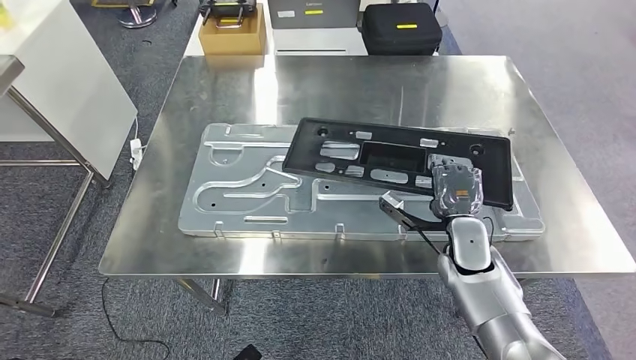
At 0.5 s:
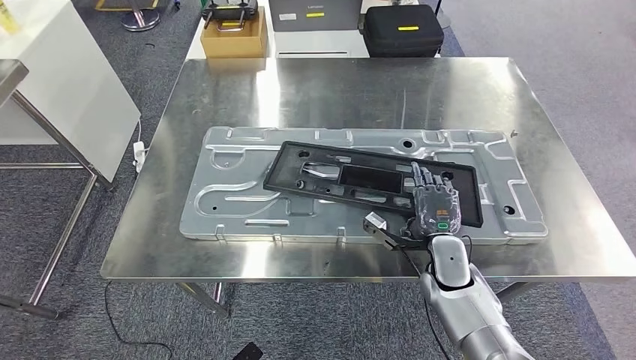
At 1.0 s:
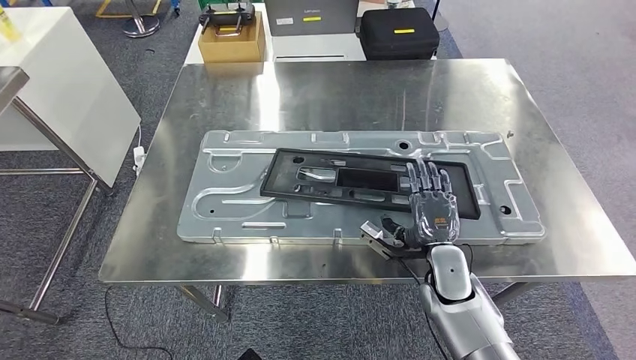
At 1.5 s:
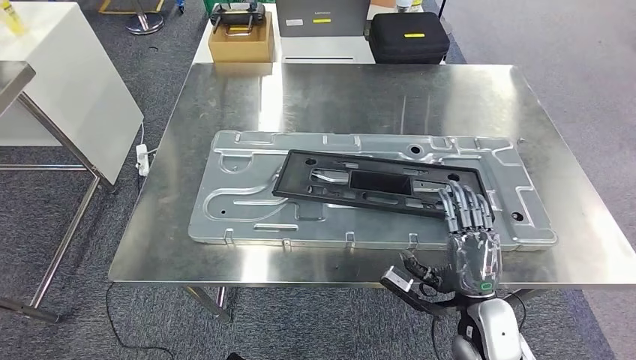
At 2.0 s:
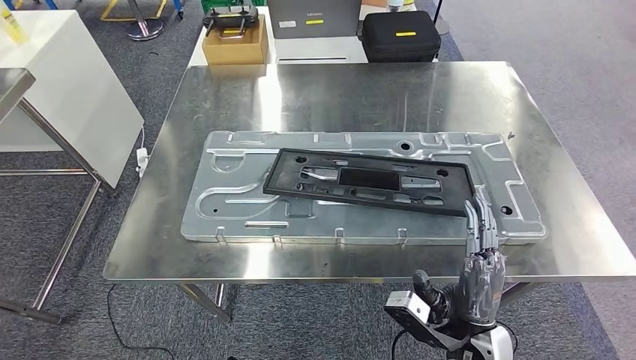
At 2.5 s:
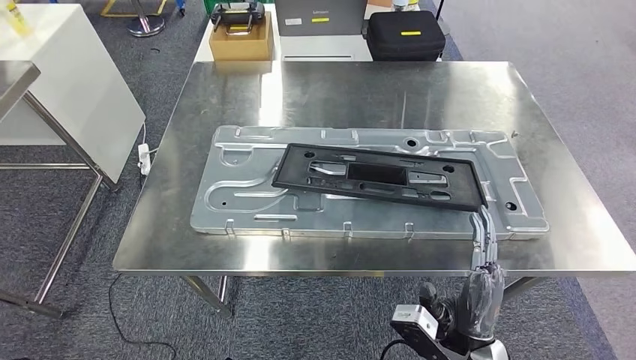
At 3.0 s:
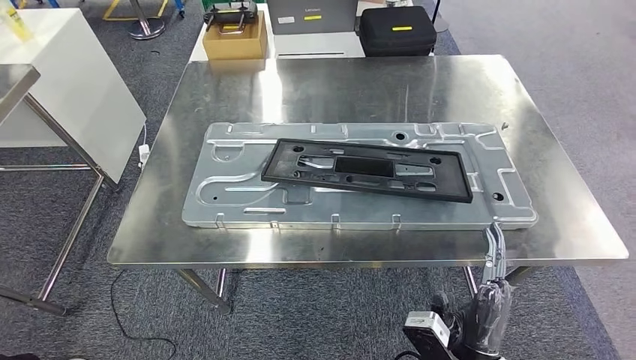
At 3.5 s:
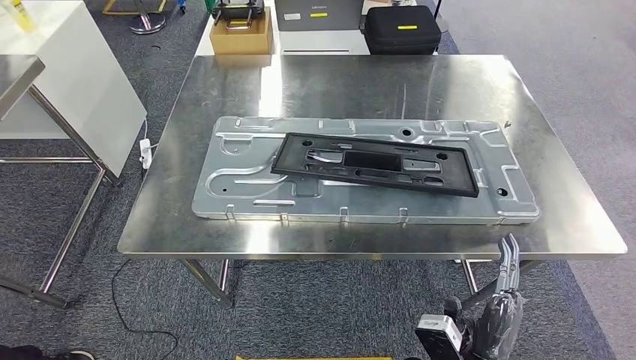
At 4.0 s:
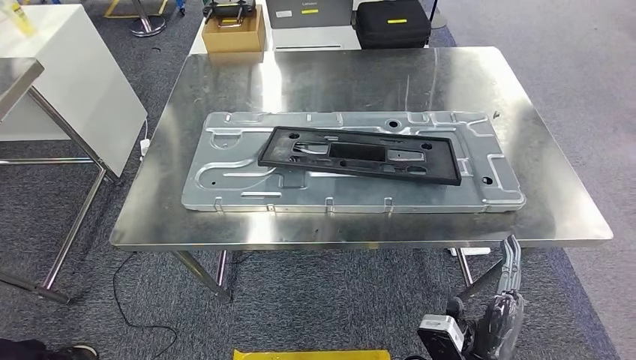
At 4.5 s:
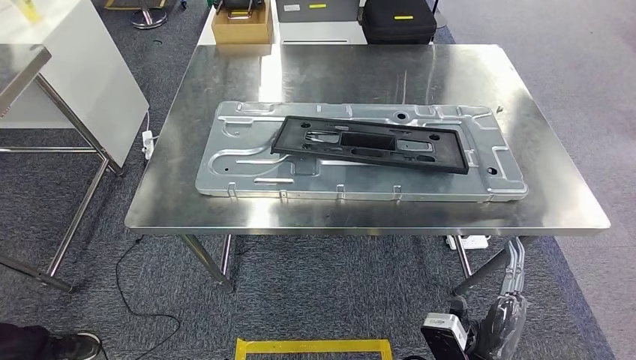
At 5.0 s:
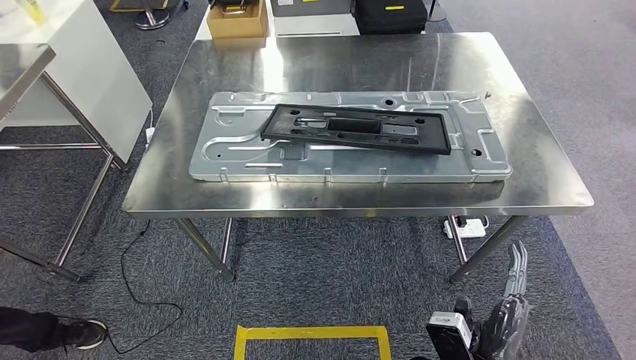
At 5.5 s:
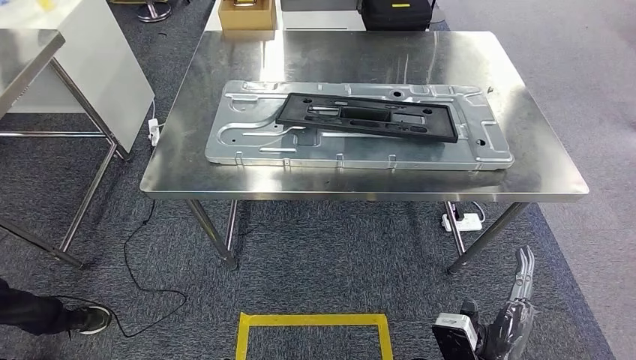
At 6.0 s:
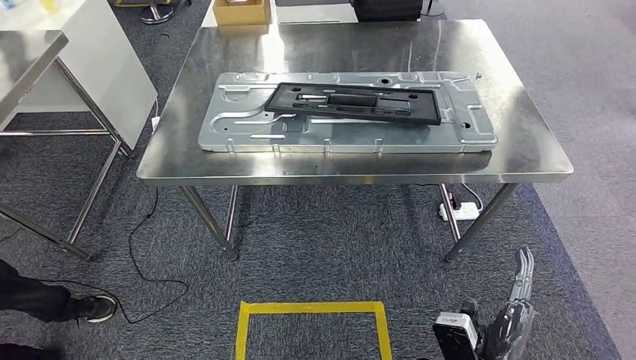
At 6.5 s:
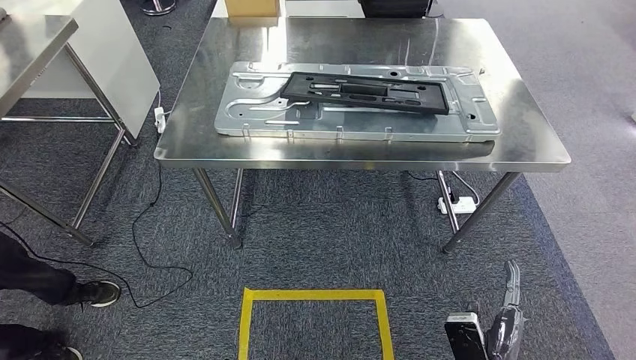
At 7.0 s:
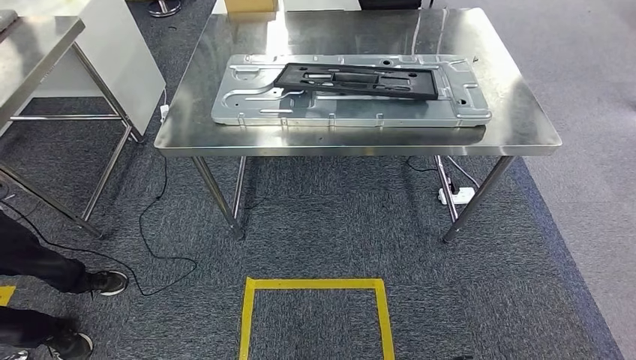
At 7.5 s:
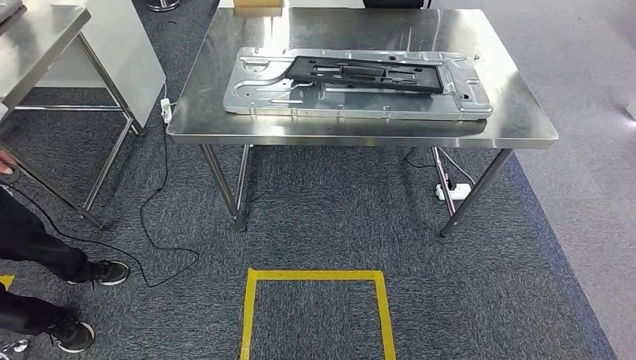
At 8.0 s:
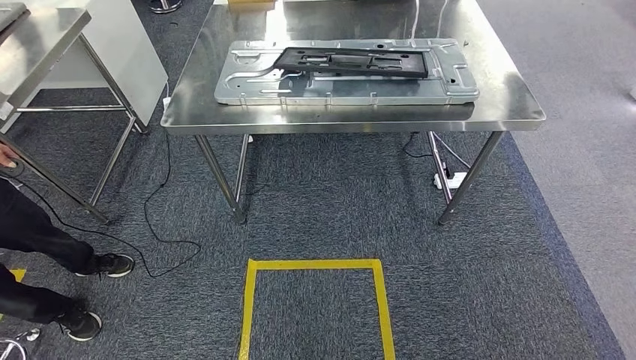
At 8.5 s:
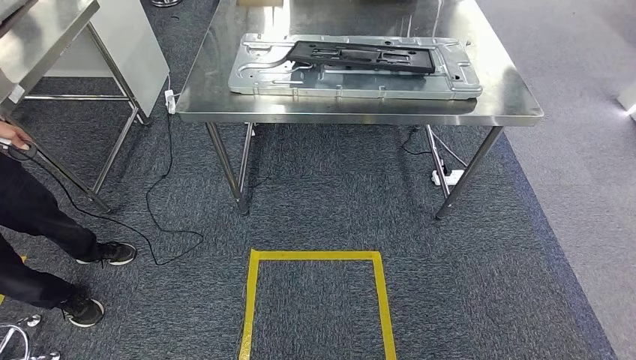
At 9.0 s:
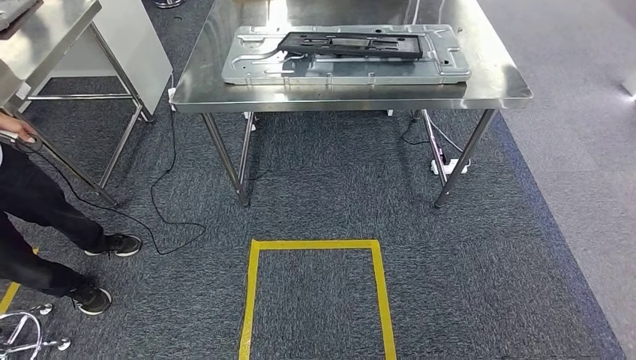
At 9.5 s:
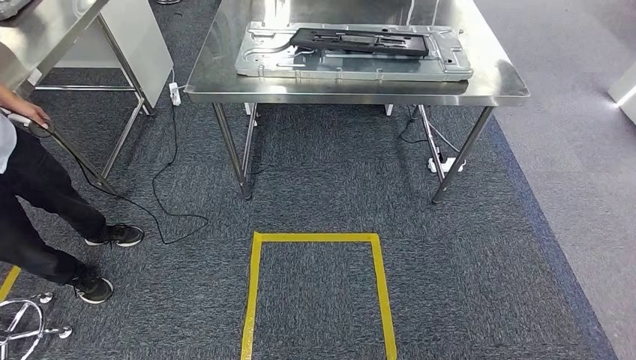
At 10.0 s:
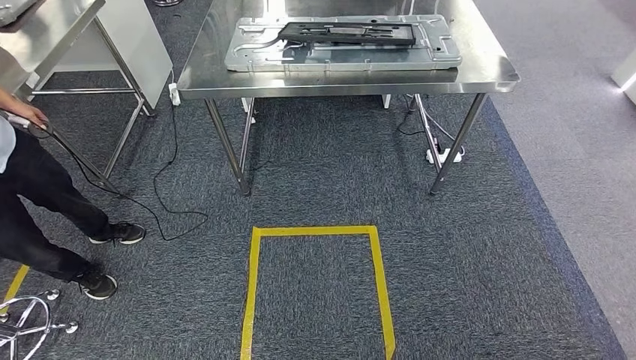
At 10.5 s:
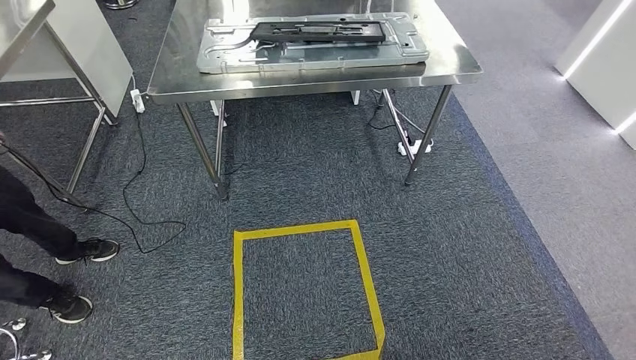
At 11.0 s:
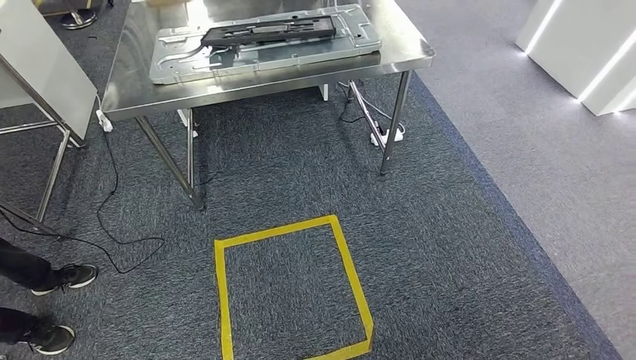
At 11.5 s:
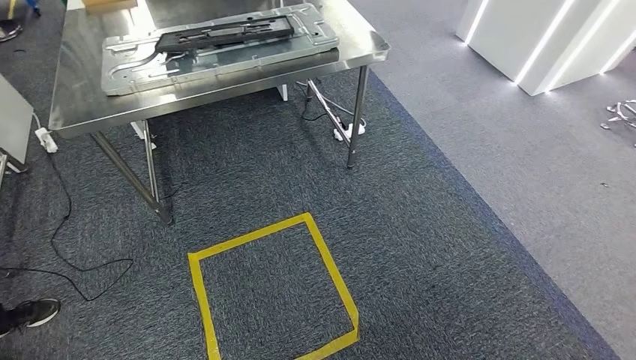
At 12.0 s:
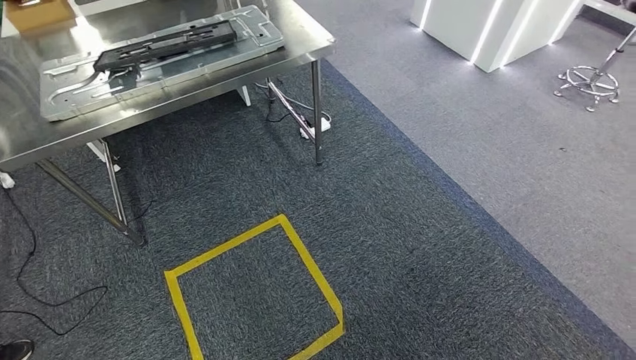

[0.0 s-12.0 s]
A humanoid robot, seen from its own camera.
Step, 0.0 to 5.5 s: Insert the large material into the corresponding slot on the workbench.

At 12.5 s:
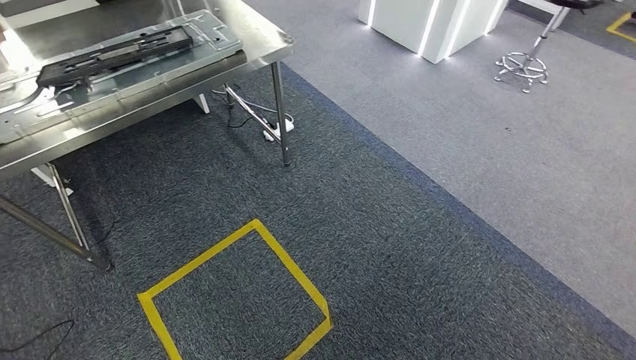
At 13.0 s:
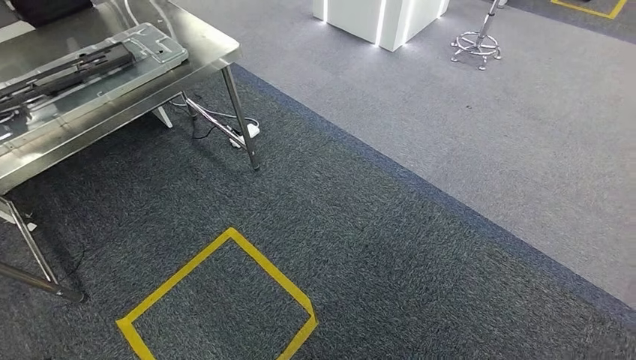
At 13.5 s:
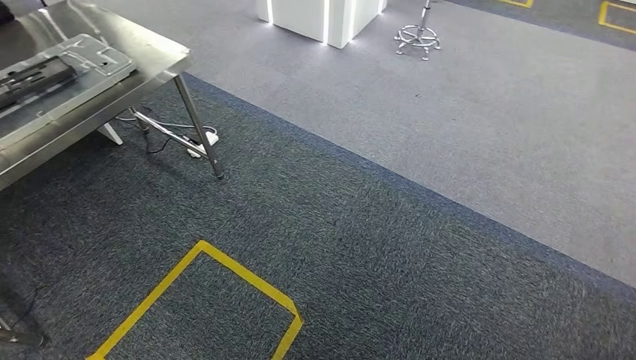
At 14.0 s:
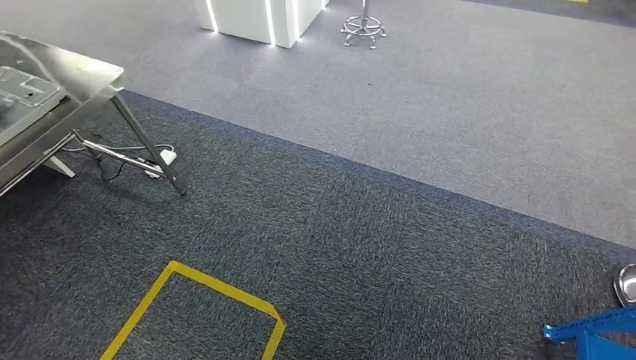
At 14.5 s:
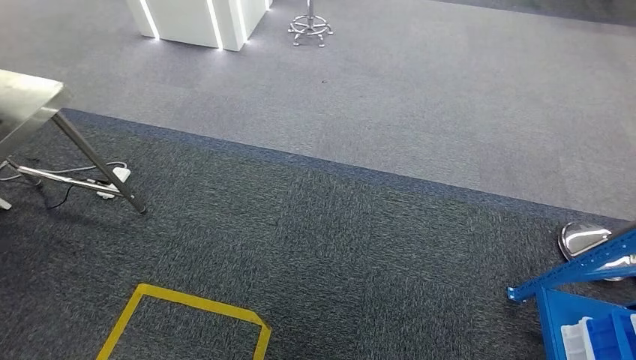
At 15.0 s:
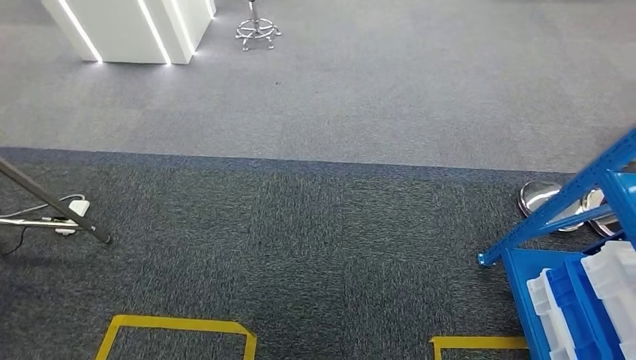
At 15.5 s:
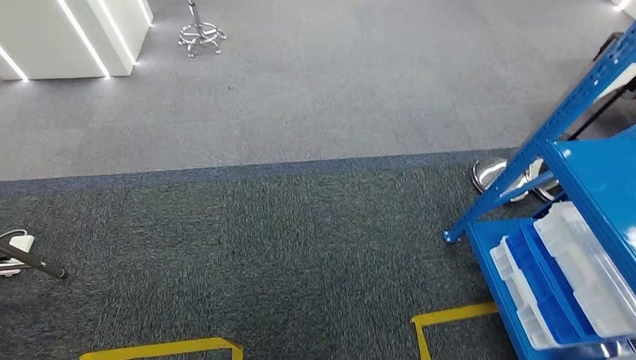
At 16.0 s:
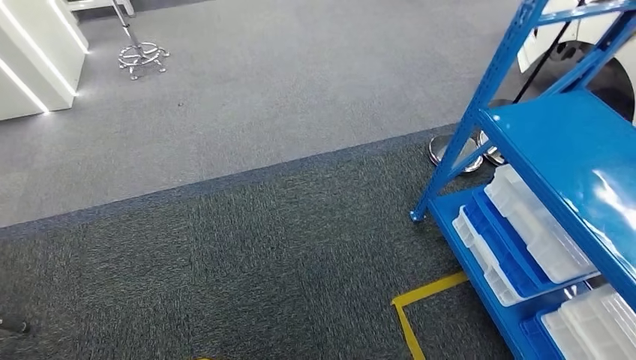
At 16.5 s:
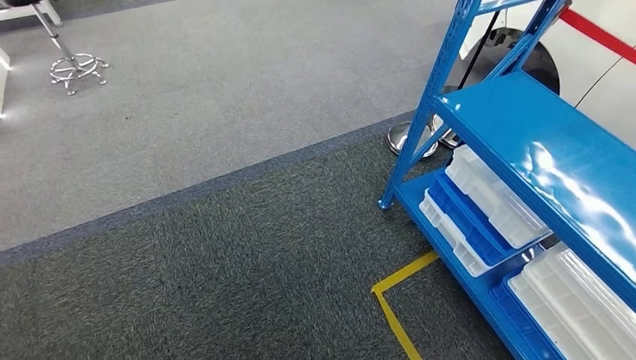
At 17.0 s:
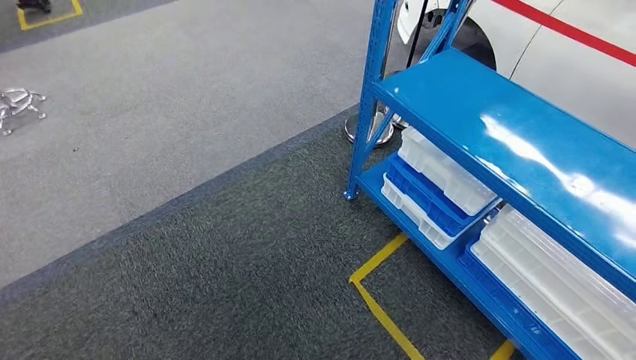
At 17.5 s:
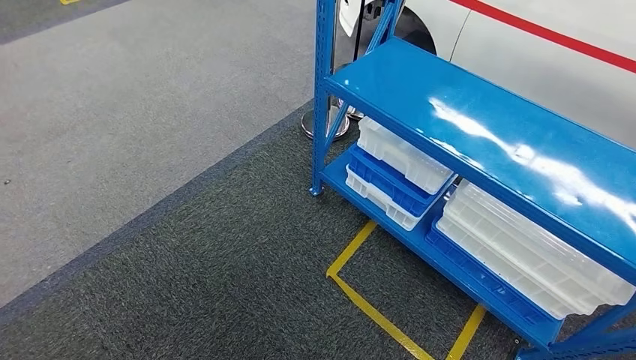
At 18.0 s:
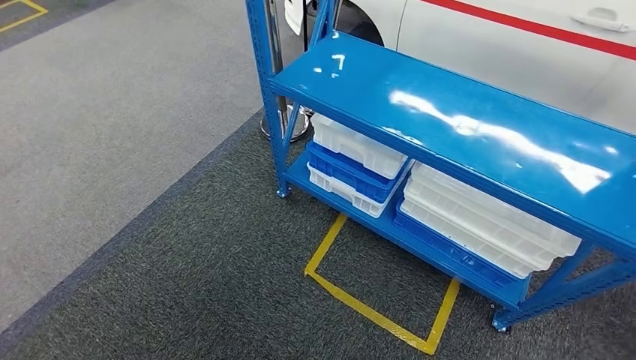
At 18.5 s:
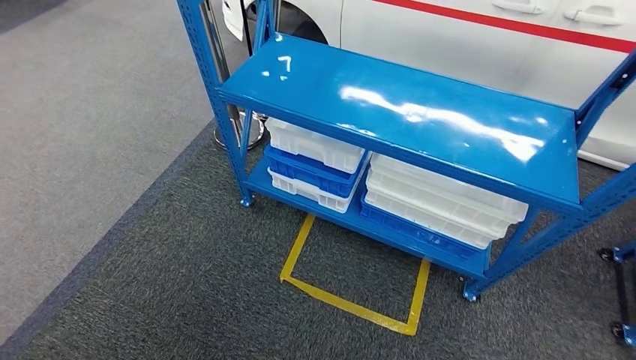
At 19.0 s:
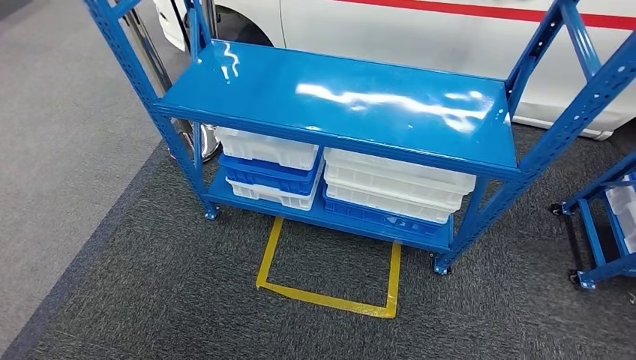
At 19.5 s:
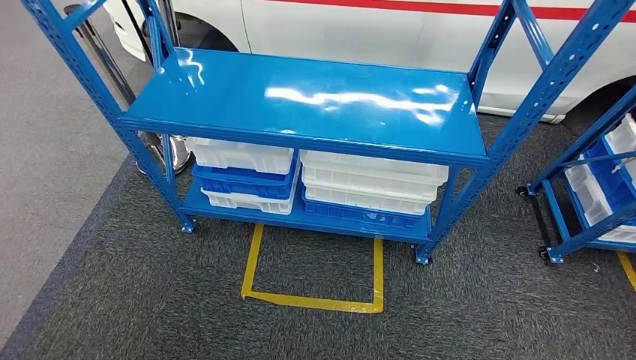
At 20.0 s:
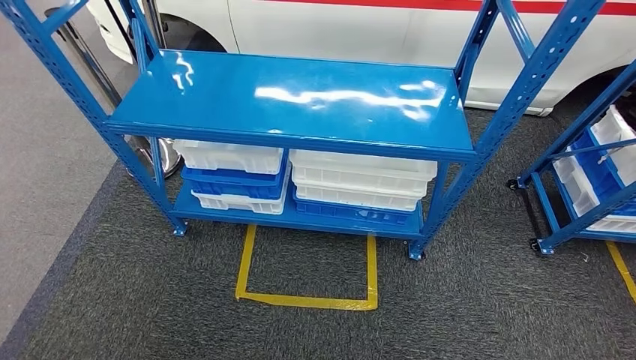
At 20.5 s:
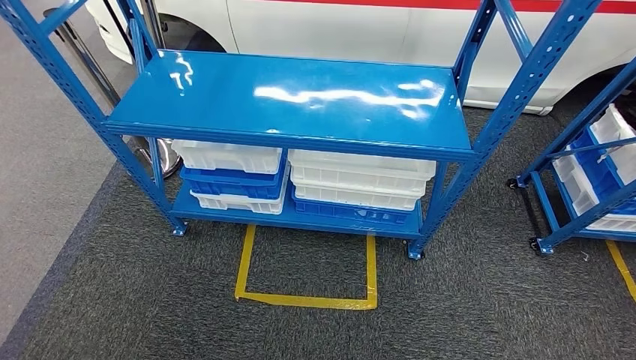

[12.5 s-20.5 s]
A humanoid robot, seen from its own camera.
Step, 12.5 to 20.5 s: Move to the initial position of the shelf.
